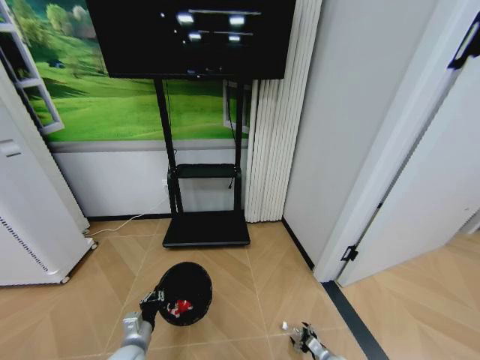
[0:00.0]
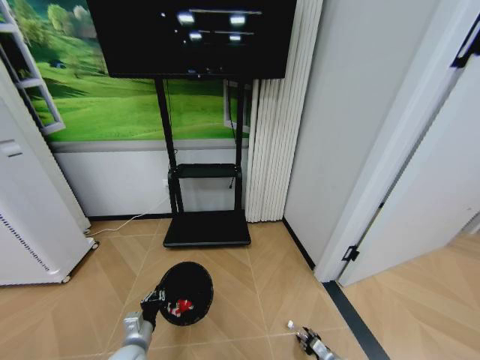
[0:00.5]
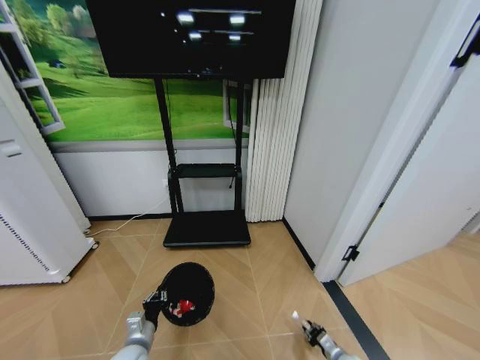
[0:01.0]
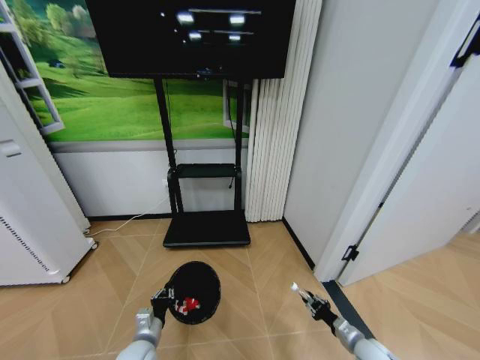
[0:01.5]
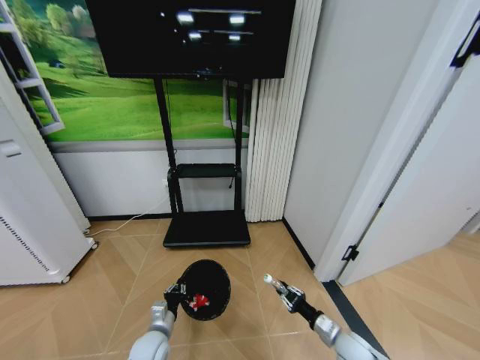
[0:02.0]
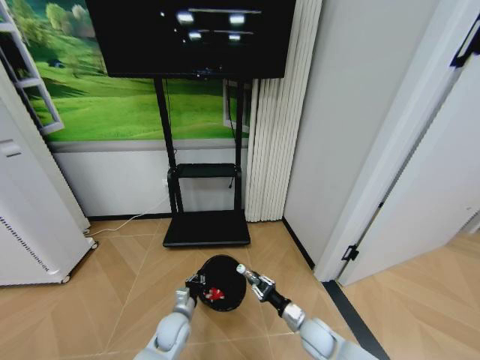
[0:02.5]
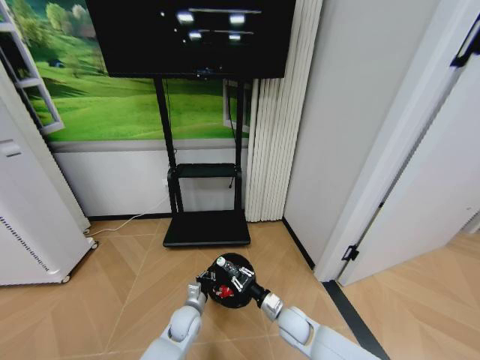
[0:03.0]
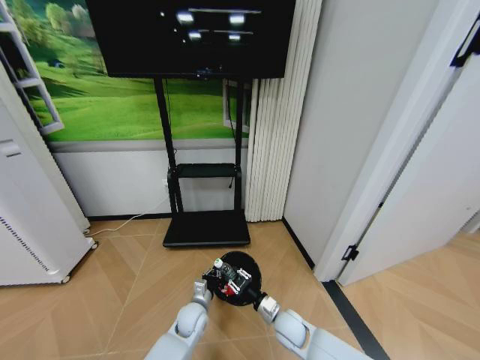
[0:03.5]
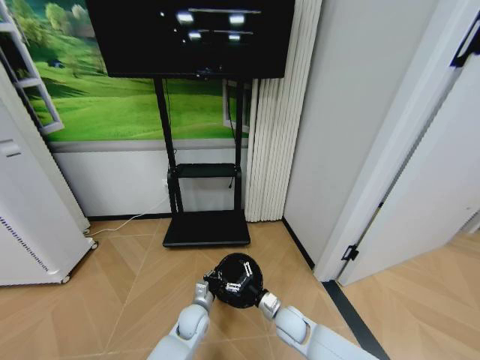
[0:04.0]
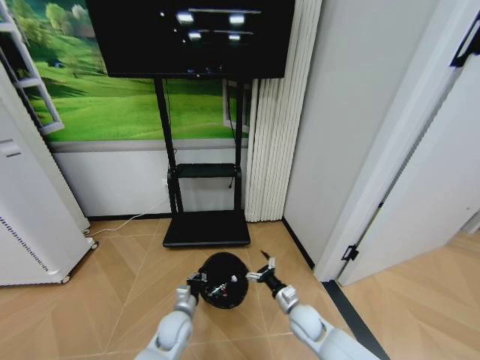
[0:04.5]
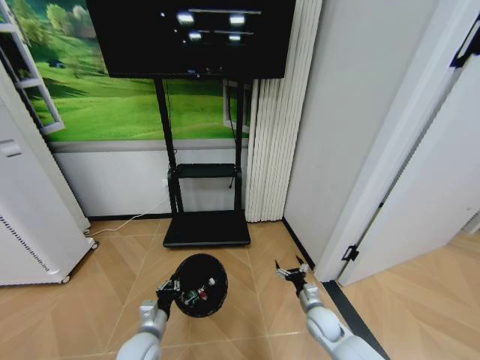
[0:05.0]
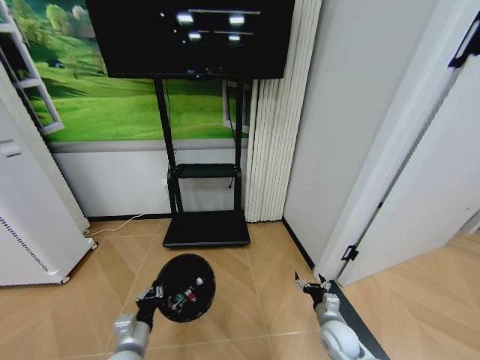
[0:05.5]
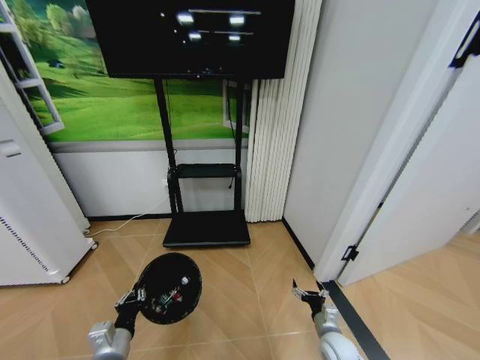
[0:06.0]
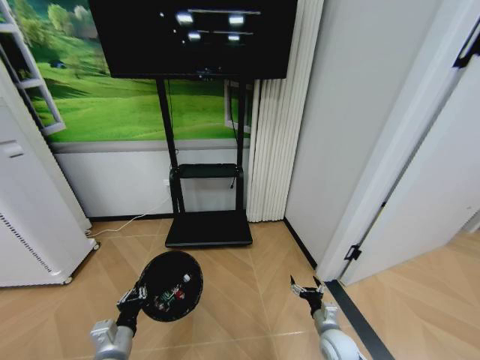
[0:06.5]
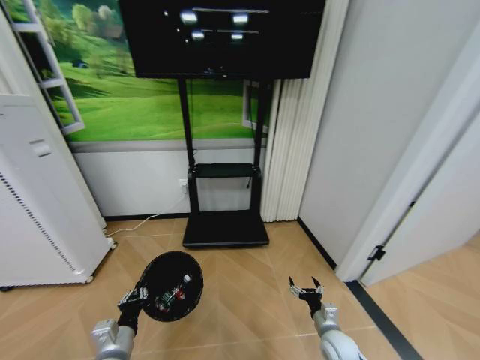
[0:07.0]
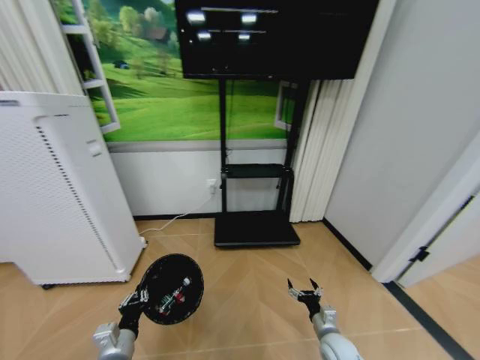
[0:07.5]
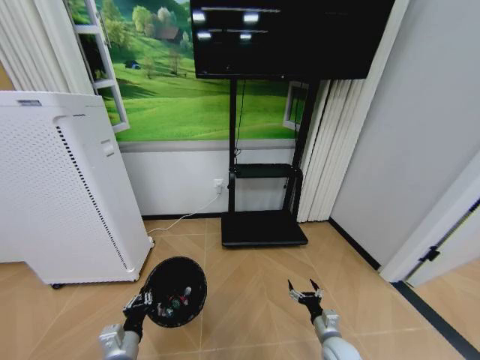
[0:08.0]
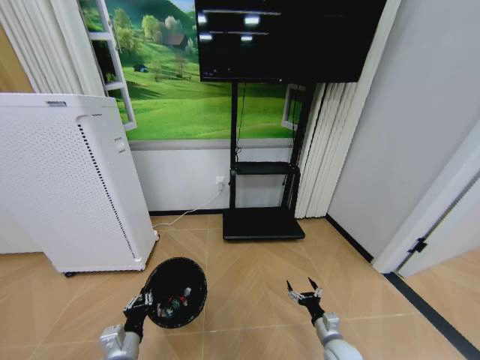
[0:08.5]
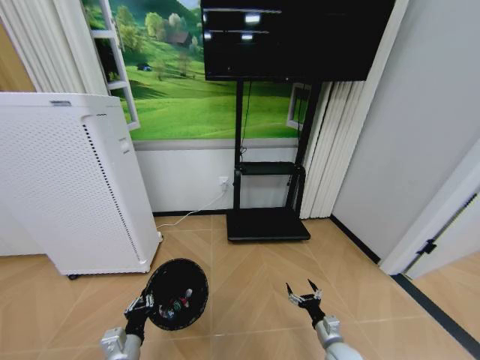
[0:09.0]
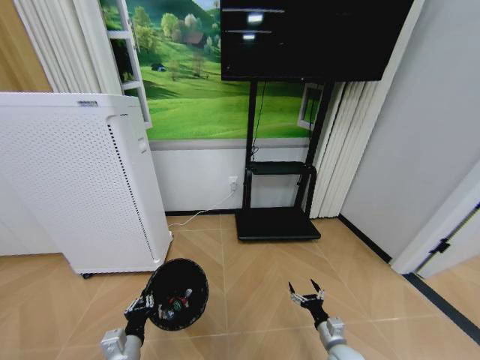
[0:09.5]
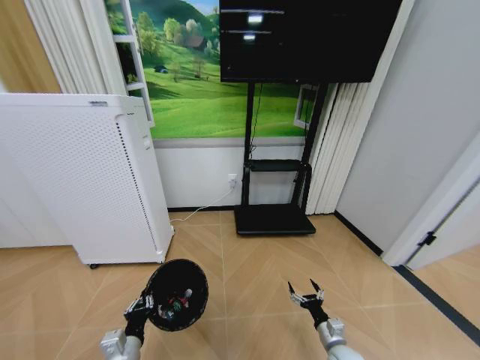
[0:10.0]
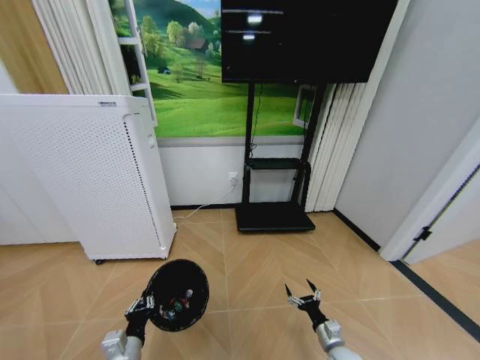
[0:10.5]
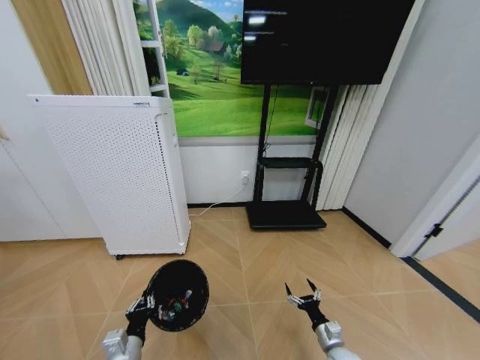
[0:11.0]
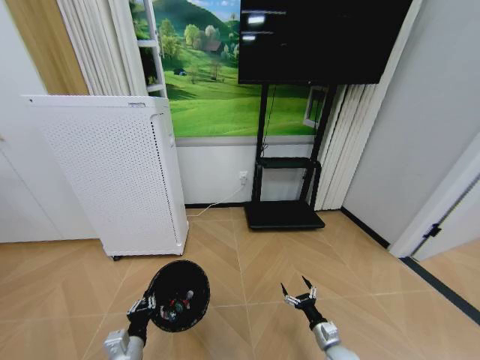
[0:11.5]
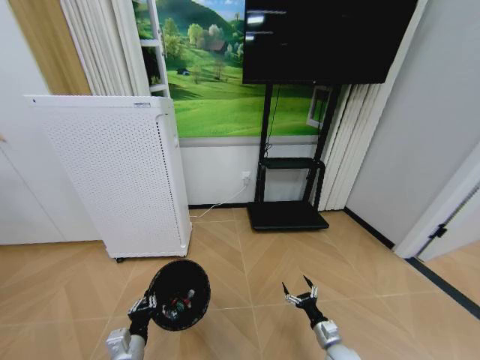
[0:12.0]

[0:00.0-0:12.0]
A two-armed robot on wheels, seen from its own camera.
Task of the whole recording: Pick up the trash bin and place the garbage on the floor into it.
0:00.0 to 0:02.0: The left gripper ends up roughly 5 cm from where it was. Meanwhile the right gripper shifts roughly 20 cm upward, and closes up.
0:02.0 to 0:04.0: The right gripper heads to the left and forward, covering approximately 15 cm, and opens its fingers. Meanwhile the left gripper is displaced to the right and forward by about 15 cm.
0:04.0 to 0:06.0: The right gripper moves to the right and backward, some 15 cm; the left gripper moves to the left, backward and upward, roughly 25 cm.

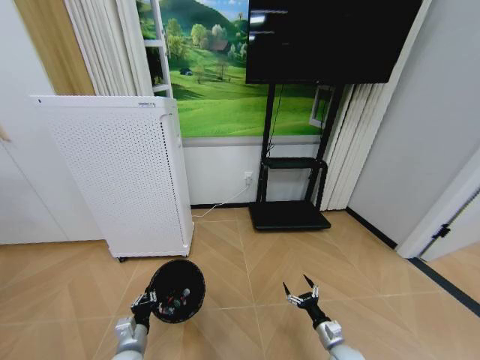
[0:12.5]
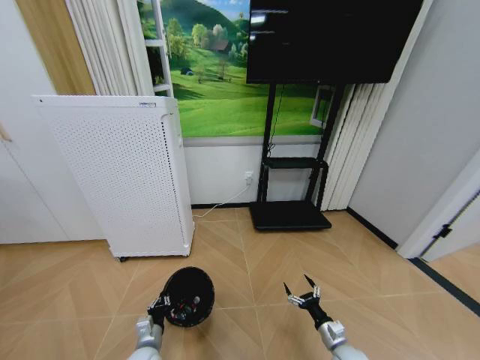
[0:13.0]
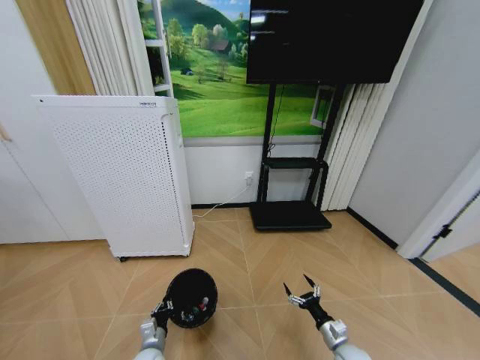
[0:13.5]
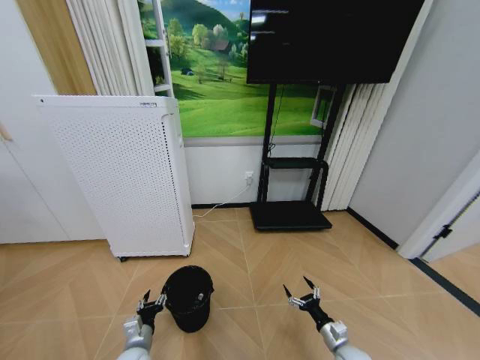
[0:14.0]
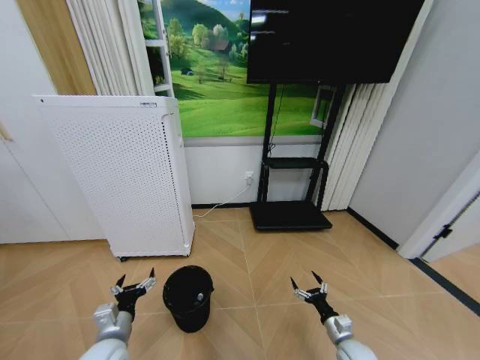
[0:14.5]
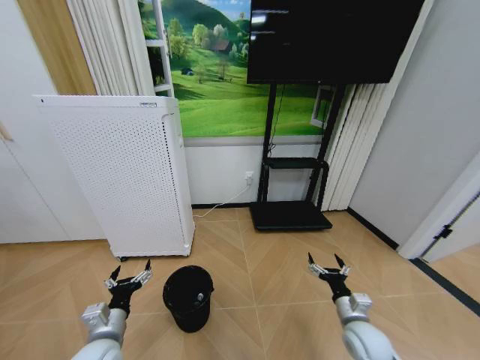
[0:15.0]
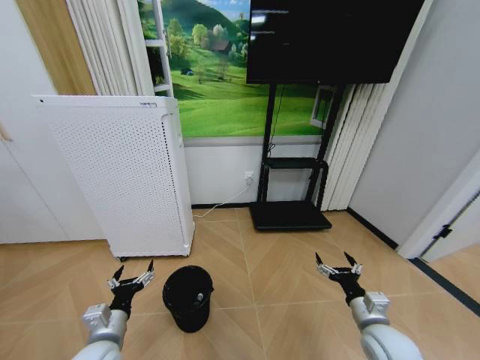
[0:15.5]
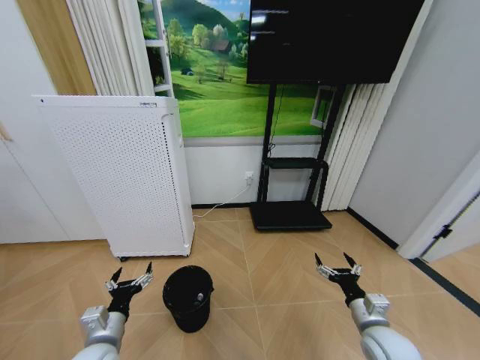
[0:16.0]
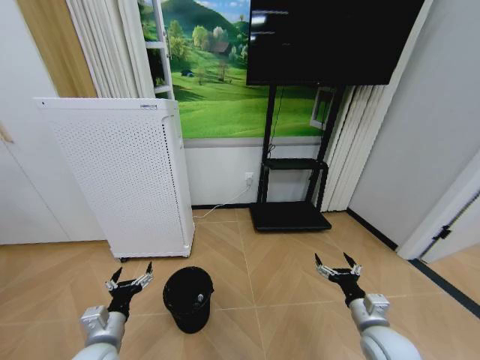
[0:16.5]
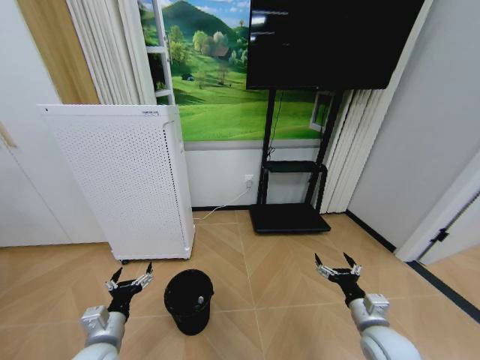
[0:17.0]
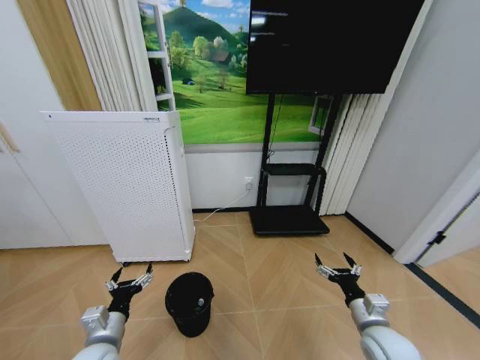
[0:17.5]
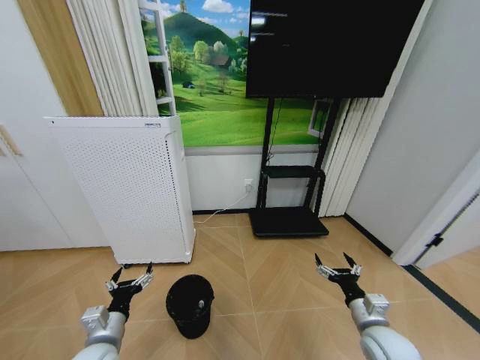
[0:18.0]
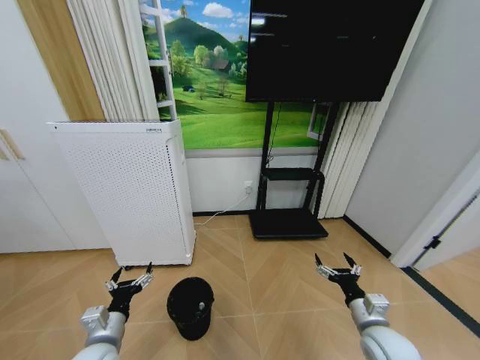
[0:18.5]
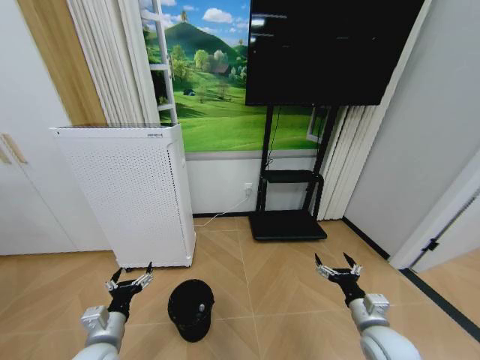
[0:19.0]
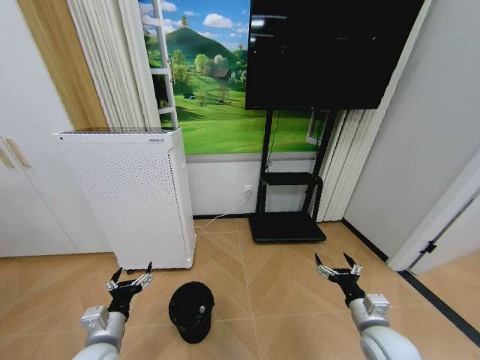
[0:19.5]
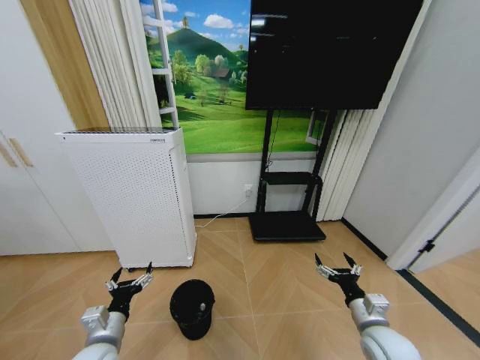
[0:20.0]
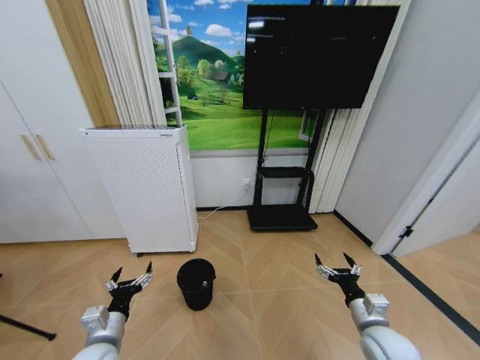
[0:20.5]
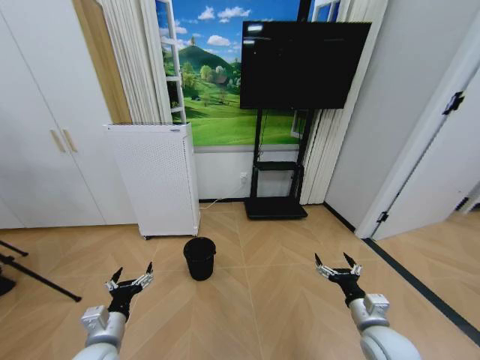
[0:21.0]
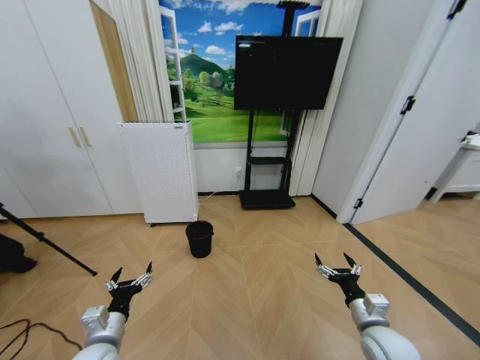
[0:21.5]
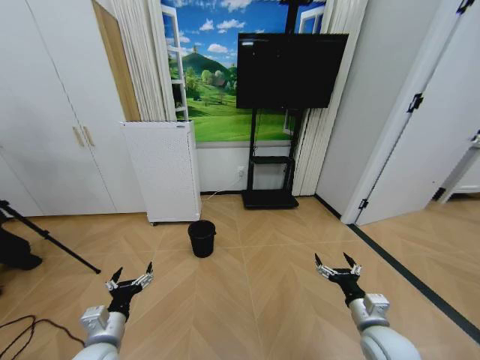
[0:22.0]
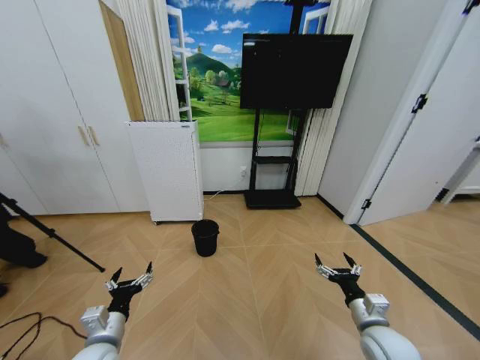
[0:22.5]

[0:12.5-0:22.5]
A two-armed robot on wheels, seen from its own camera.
Task of the whole recording: Pick up the trash bin and place the garbage on the floor into it.
0:12.5 to 0:14.5: The left gripper goes some 5 cm upward, and opens its fingers.
0:14.5 to 0:16.5: The right gripper heads upward, covering some 15 cm.
0:16.5 to 0:18.5: Both grippers stay about where they are.

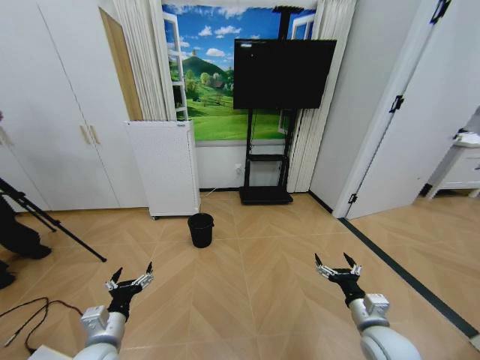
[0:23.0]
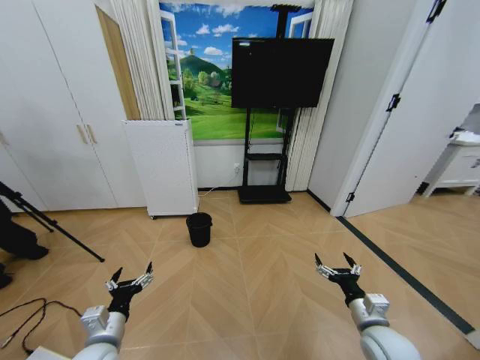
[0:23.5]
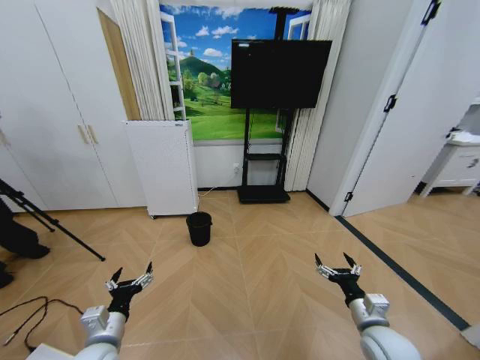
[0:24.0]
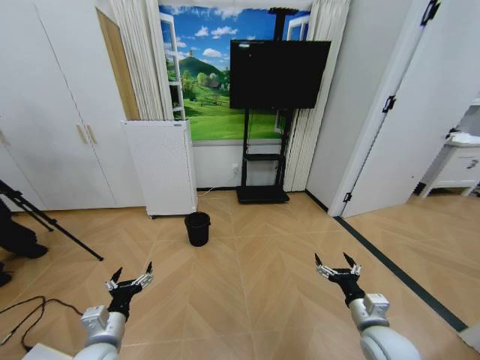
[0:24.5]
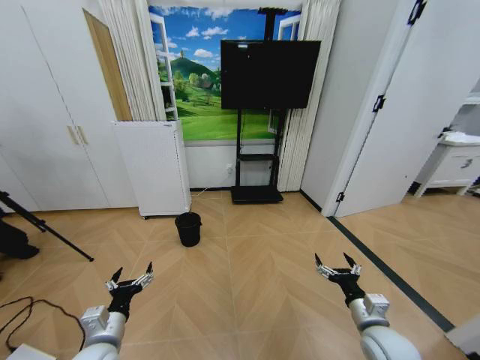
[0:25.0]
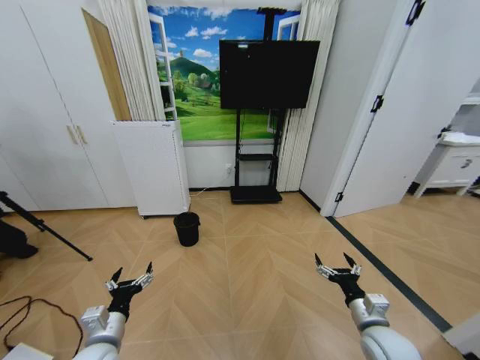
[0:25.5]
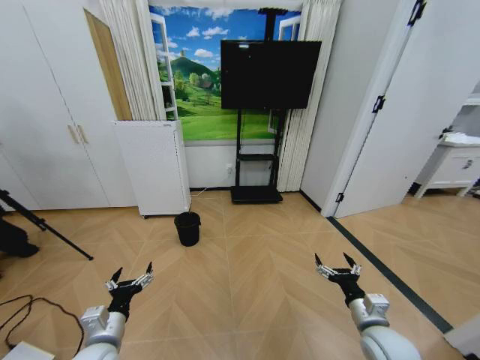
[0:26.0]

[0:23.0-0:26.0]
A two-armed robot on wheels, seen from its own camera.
Task of the whole recording: Pick up the trash bin and place the garbage on the floor into it.
0:23.0 to 0:26.0: The two grippers keep their place.
